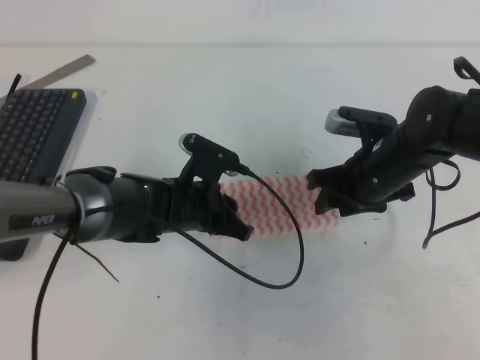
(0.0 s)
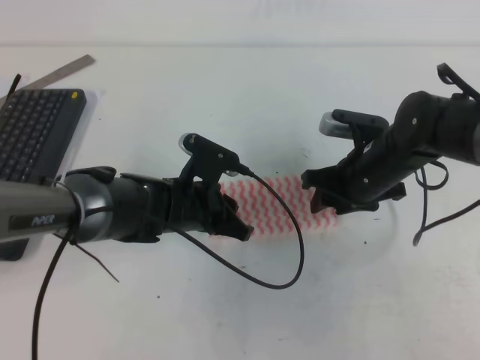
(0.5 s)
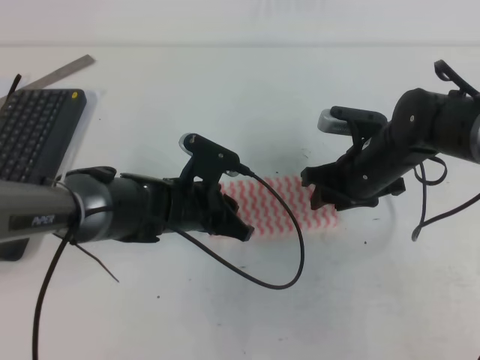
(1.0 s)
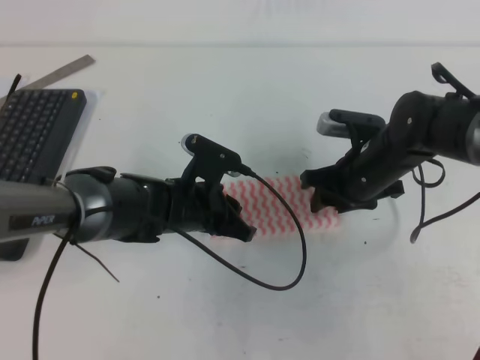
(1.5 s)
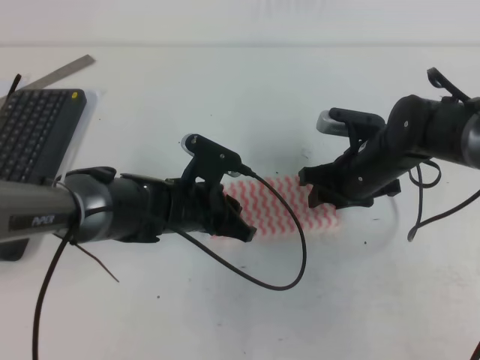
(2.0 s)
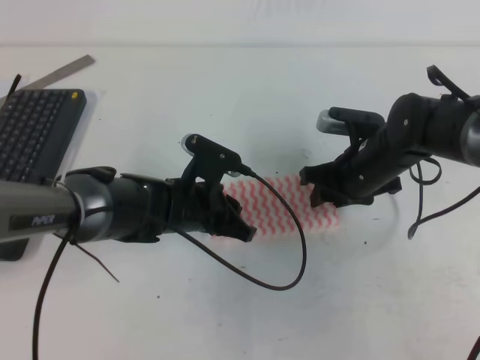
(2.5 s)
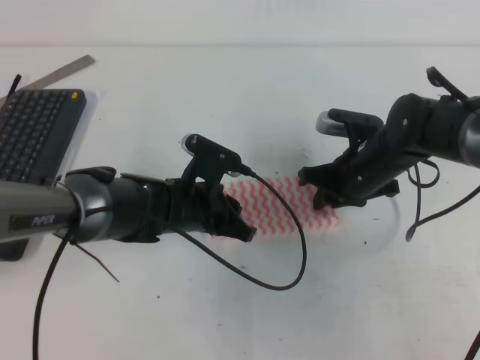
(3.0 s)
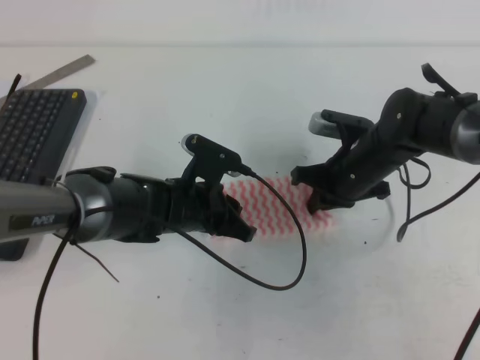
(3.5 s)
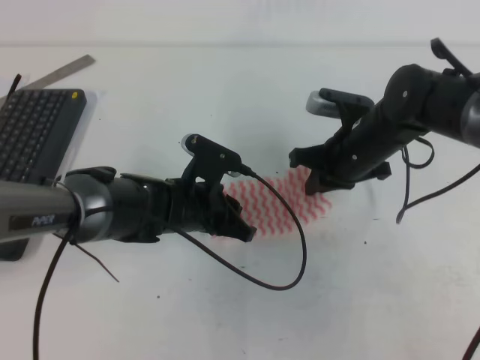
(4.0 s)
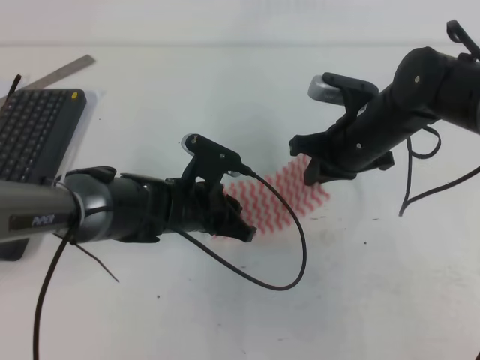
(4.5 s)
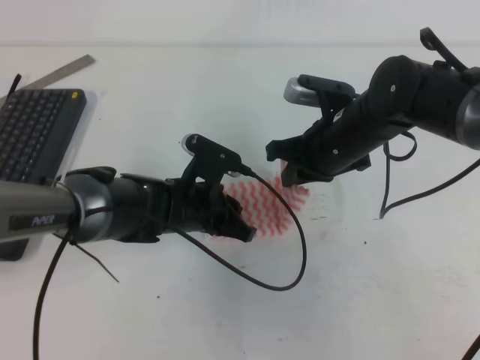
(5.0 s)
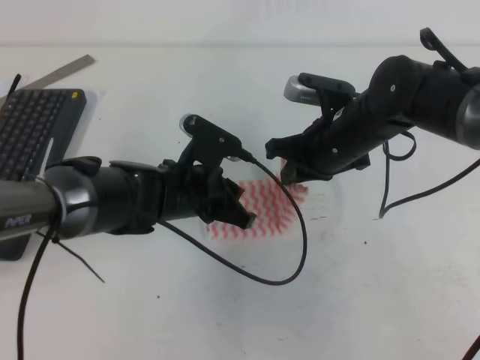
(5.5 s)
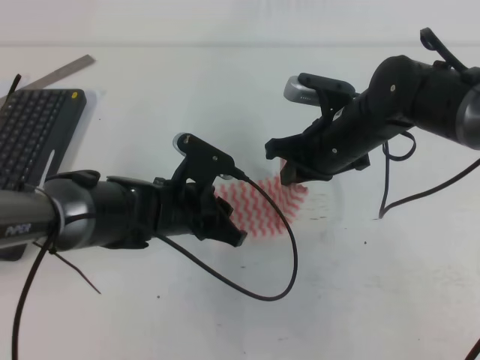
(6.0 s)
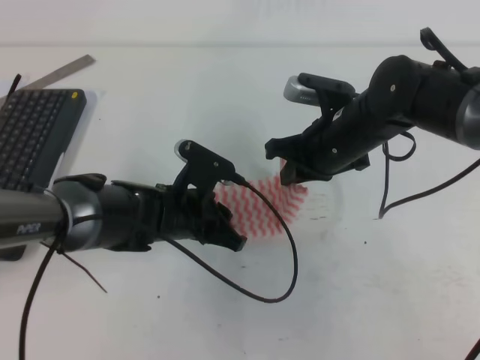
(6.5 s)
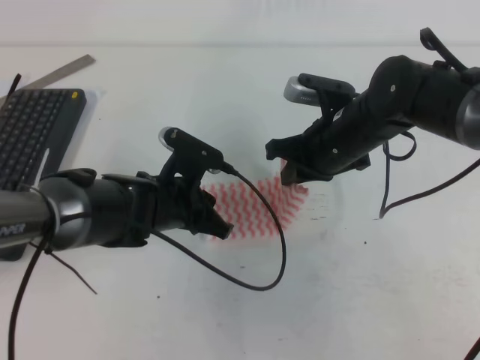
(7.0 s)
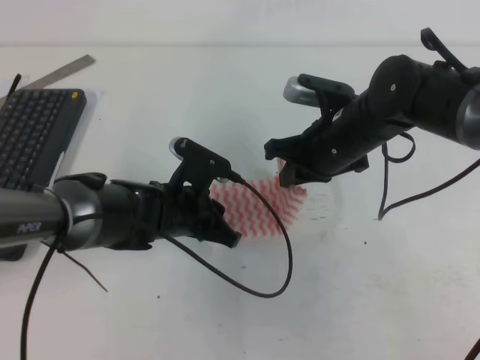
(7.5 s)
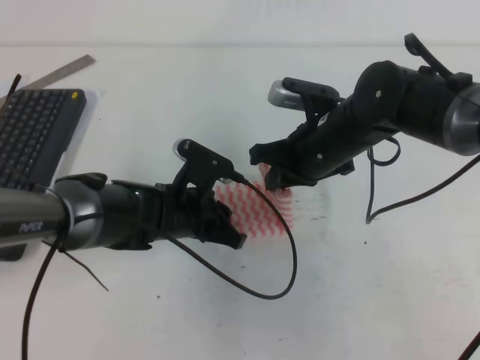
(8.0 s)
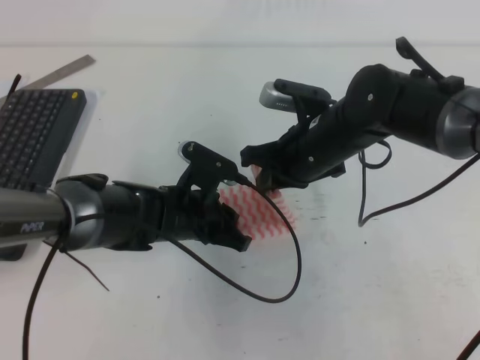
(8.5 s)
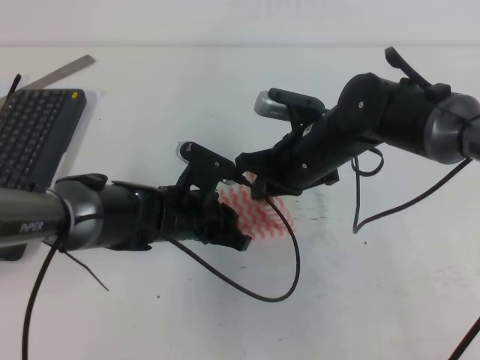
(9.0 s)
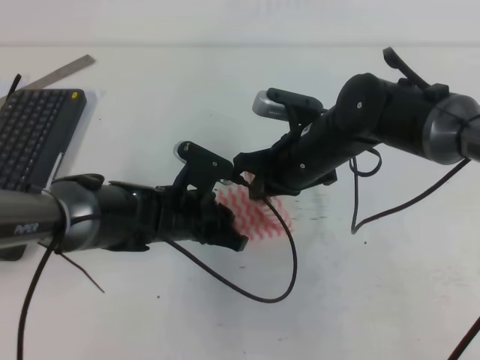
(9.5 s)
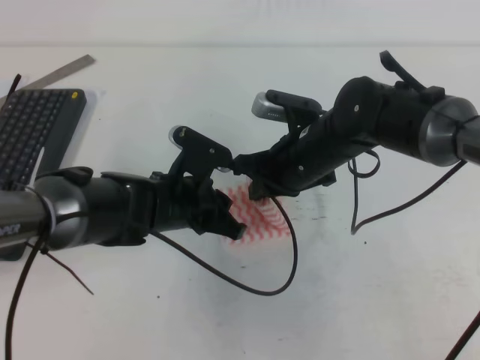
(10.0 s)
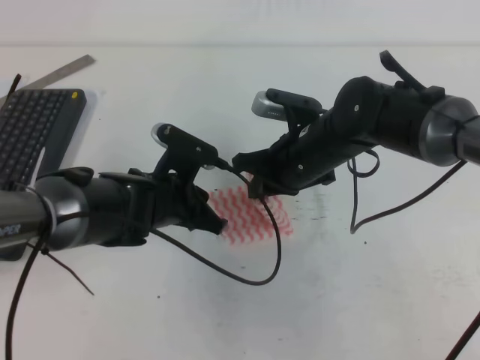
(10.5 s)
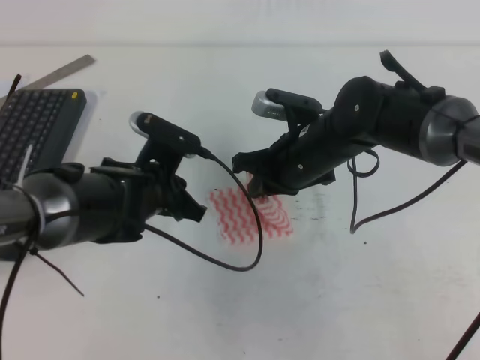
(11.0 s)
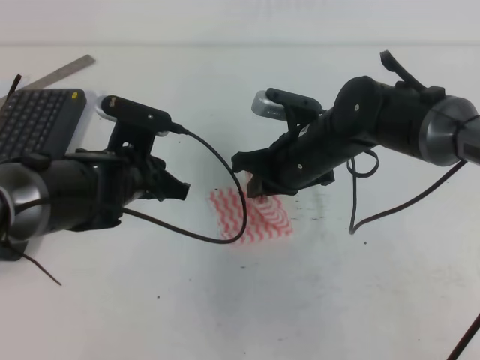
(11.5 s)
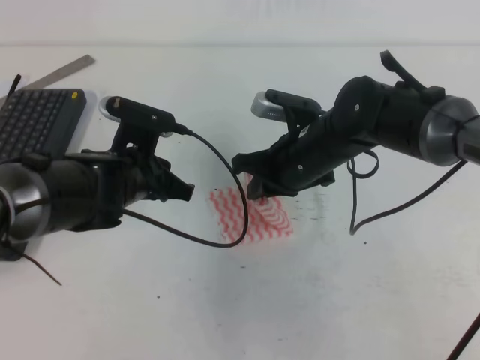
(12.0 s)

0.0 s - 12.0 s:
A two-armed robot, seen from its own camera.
0.0 s - 2.0 s: The grippers make only small movements.
2.0 s - 4.0 s: The right gripper closes up.
4.0 s - 8.0 s: The grippers stay close to where they were, moving slightly.
8.0 s - 10.0 s: The grippers move only a little.
10.0 s - 12.0 s: The left gripper goes approximately 5 cm to the left.

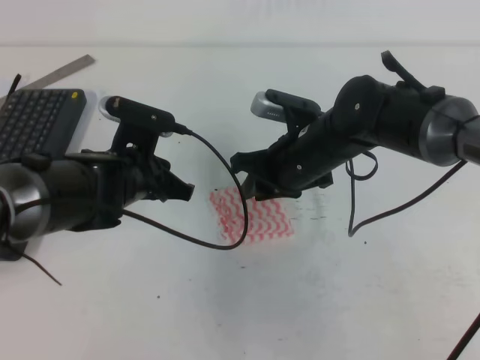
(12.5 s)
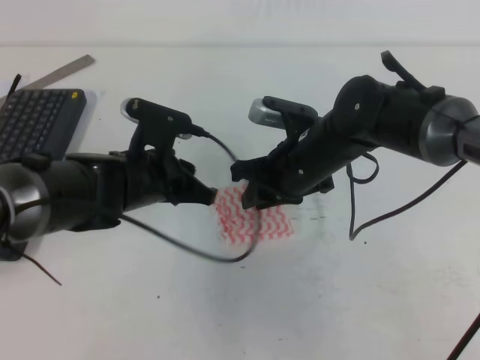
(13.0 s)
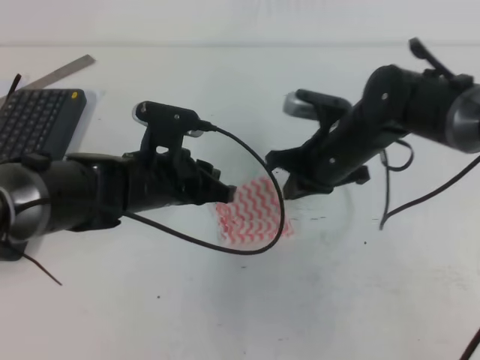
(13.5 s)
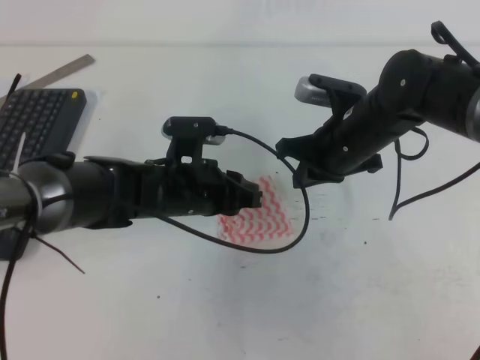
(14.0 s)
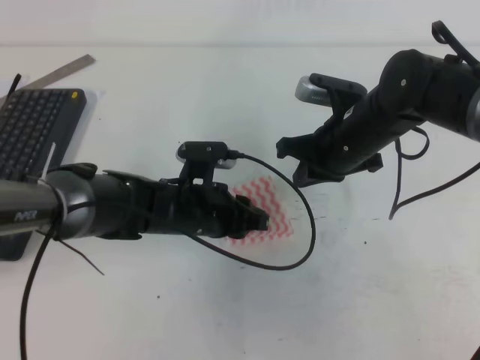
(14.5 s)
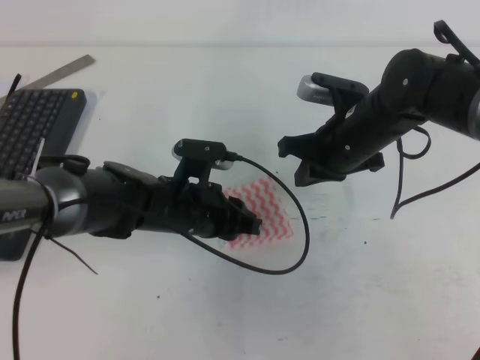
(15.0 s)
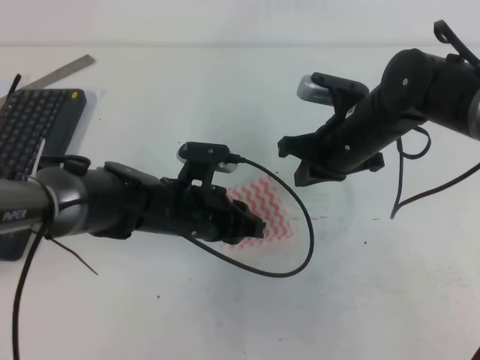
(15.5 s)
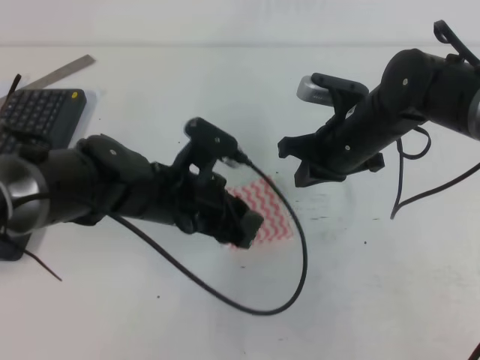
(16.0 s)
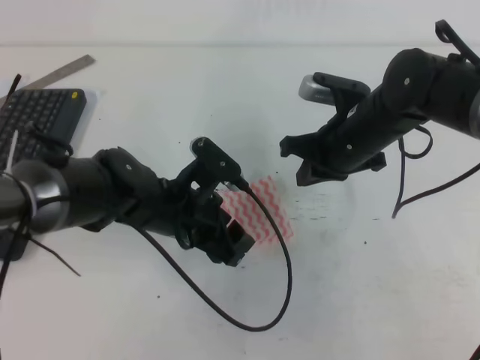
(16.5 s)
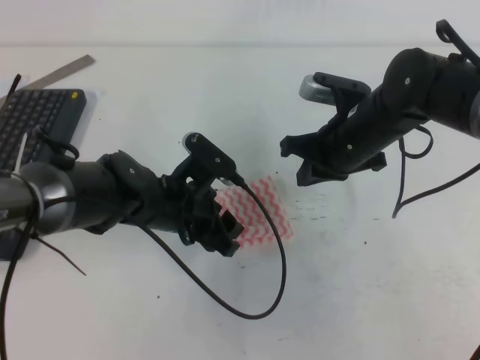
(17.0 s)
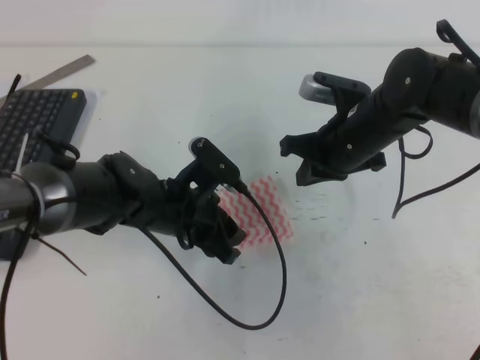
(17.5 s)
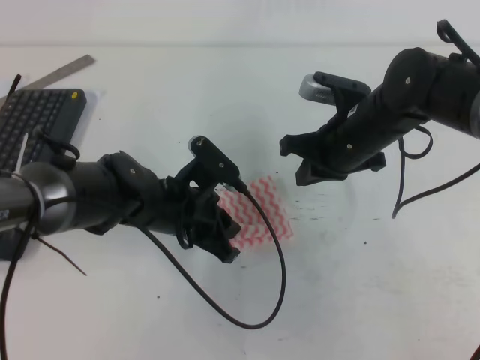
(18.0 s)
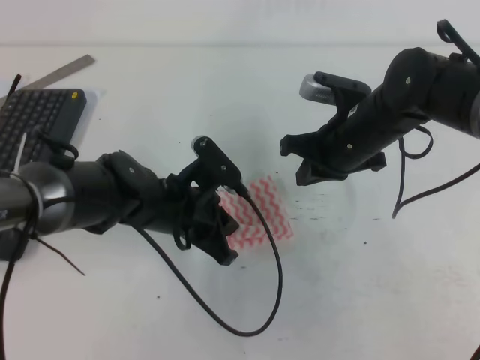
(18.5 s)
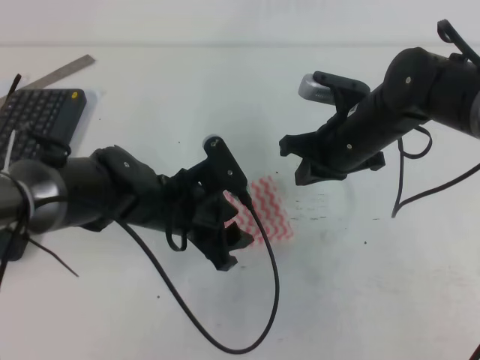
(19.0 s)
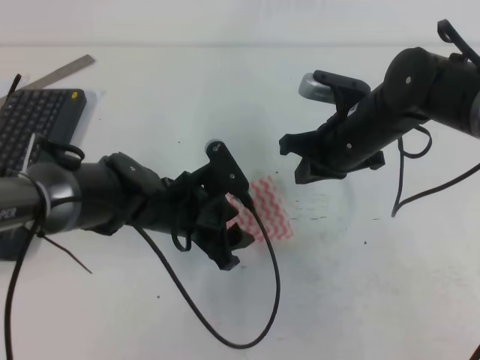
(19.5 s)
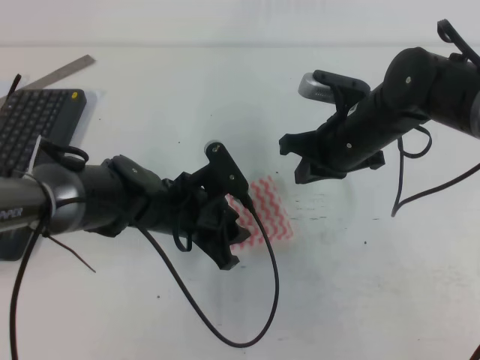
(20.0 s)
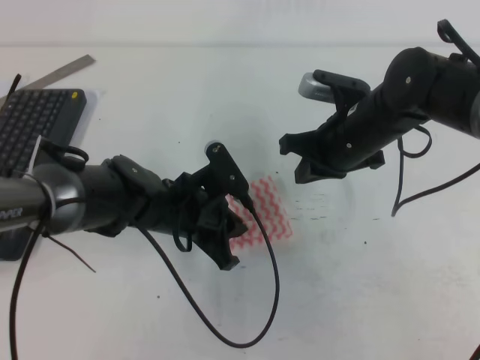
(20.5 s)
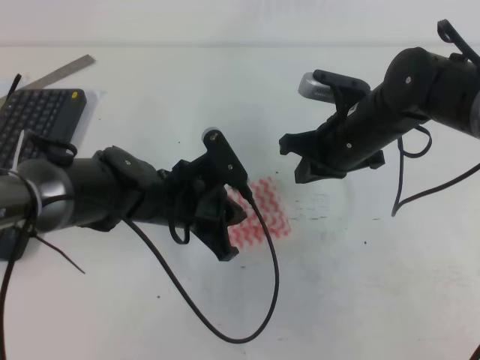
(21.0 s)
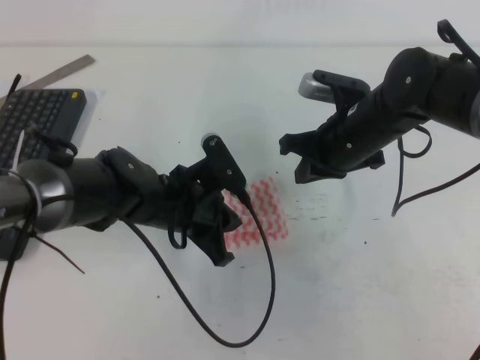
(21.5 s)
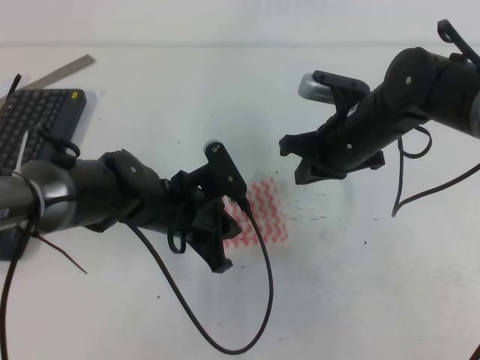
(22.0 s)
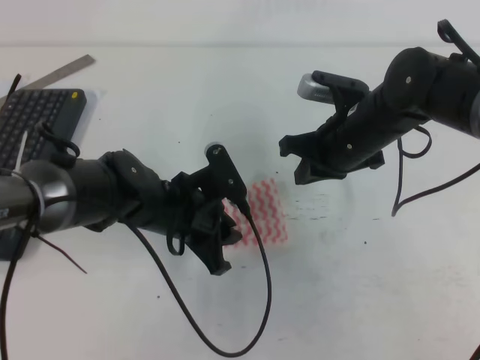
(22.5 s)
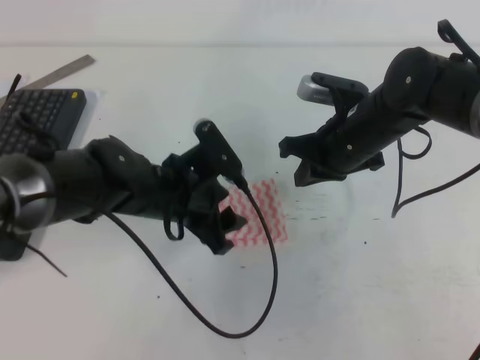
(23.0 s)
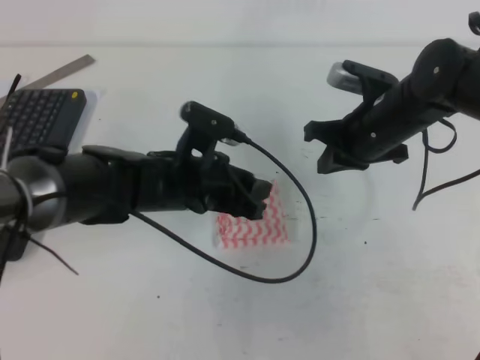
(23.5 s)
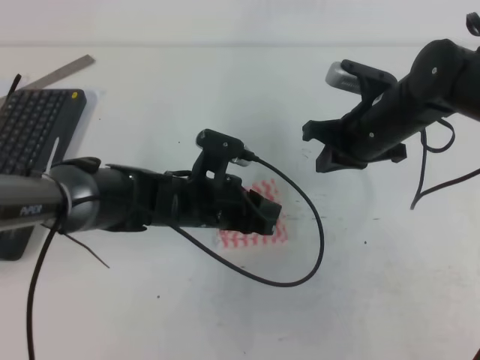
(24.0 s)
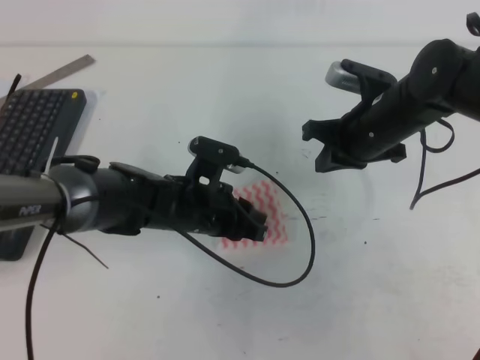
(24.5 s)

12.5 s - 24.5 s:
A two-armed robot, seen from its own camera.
12.5 s - 14.5 s: The two grippers go roughly 5 cm to the right. The right gripper closes.
14.5 s - 16.5 s: The left gripper opens up.
16.5 s - 18.5 s: The left gripper closes up.
18.5 s - 20.5 s: The left gripper opens, then closes once more.
20.5 s - 22.5 s: The left gripper opens up.
22.5 s - 24.5 s: The left gripper opens and closes again.

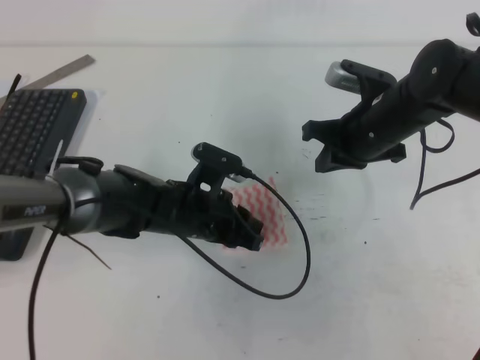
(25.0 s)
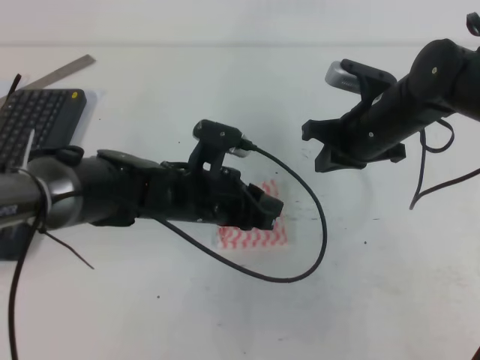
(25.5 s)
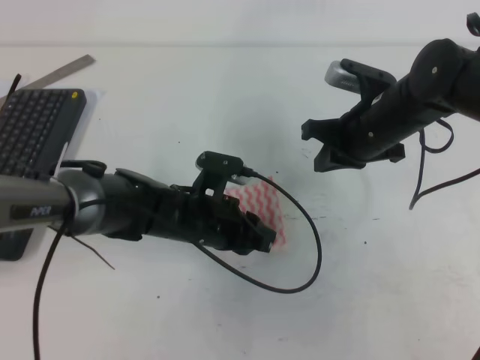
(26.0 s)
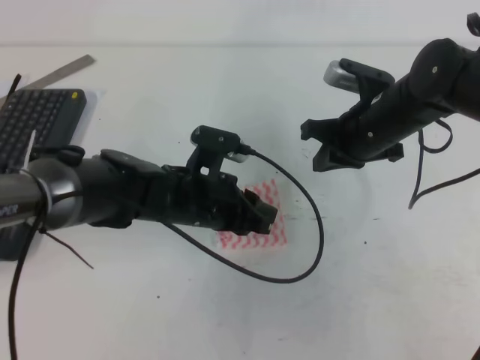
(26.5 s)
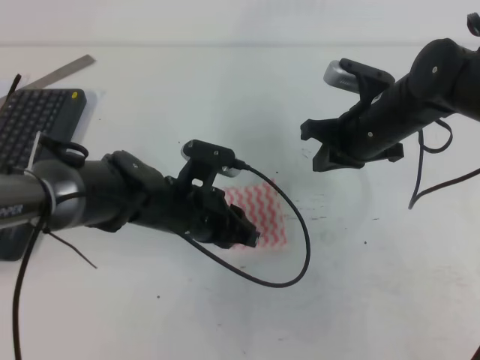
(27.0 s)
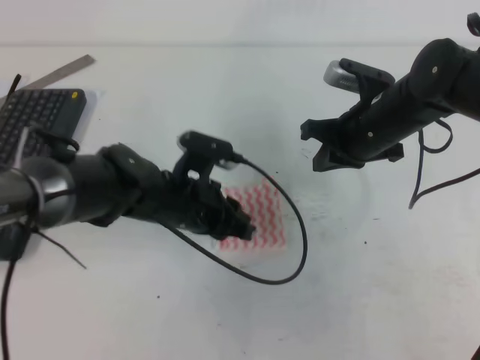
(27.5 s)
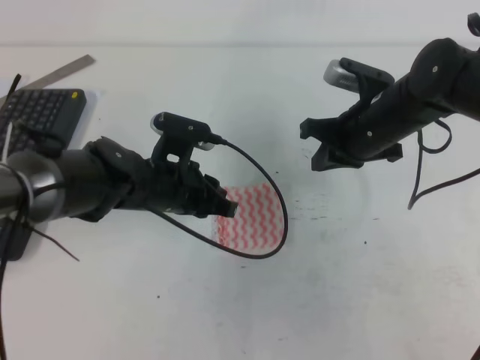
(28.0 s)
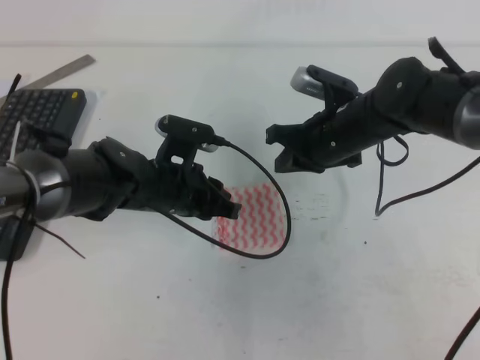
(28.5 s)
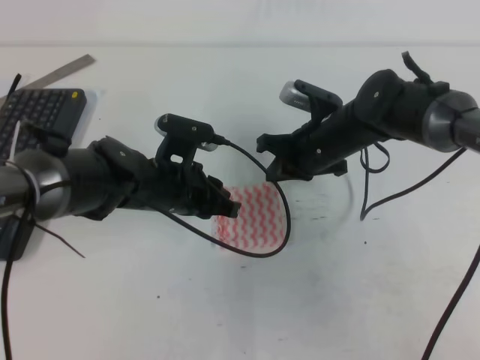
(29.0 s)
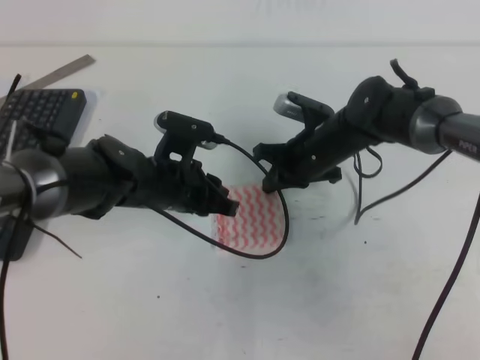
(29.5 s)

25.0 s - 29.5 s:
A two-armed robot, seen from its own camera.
25.0 s - 27.0 s: The grippers stay close to where they were, moving slightly.
27.0 s - 29.5 s: The right gripper shifts roughly 10 cm downward and to the left.
